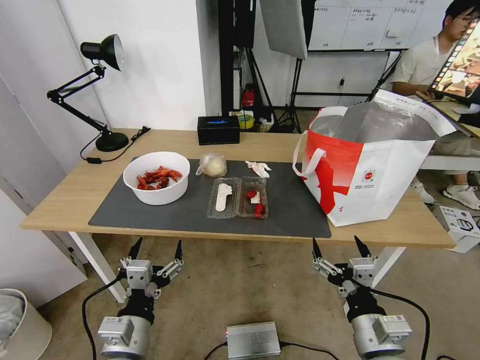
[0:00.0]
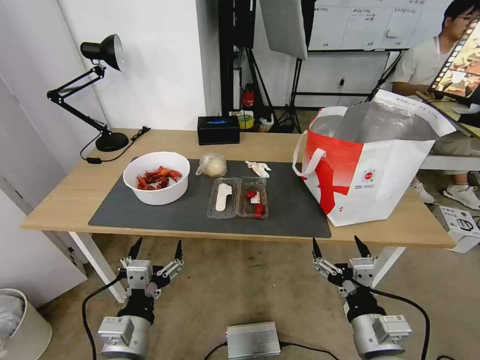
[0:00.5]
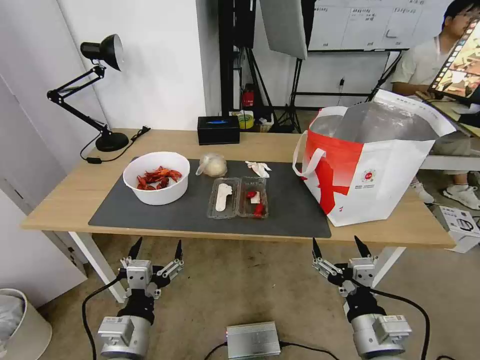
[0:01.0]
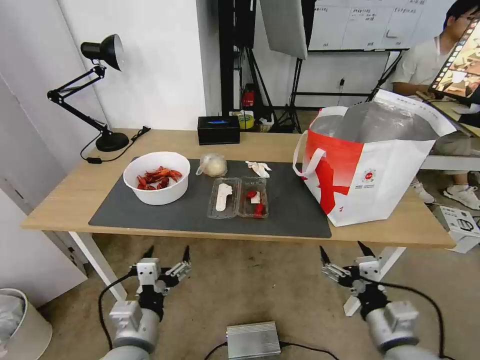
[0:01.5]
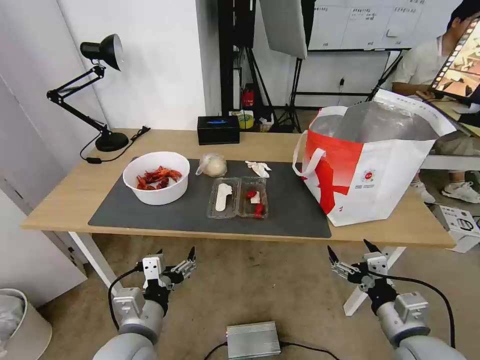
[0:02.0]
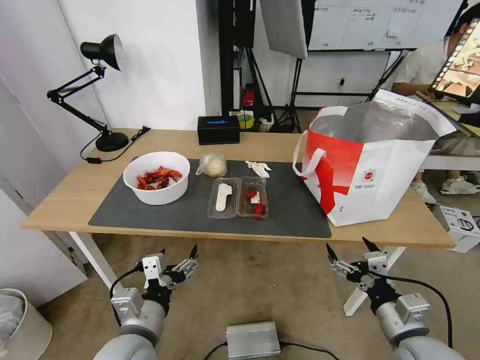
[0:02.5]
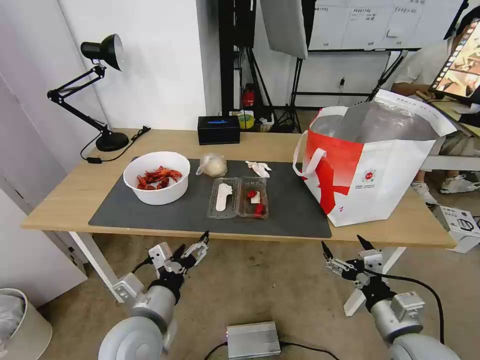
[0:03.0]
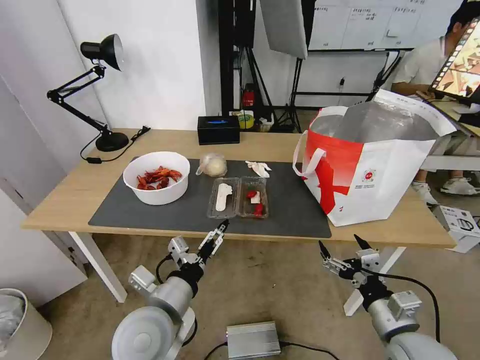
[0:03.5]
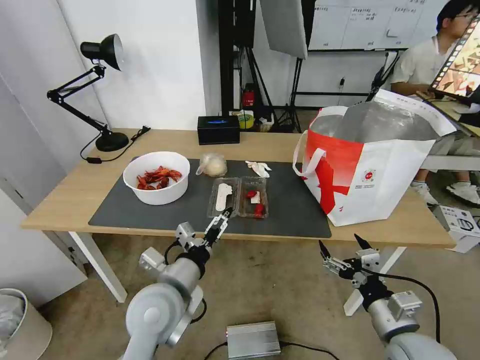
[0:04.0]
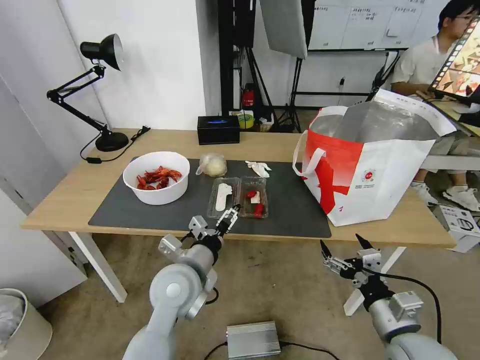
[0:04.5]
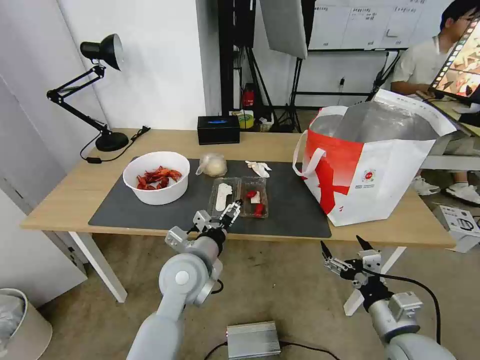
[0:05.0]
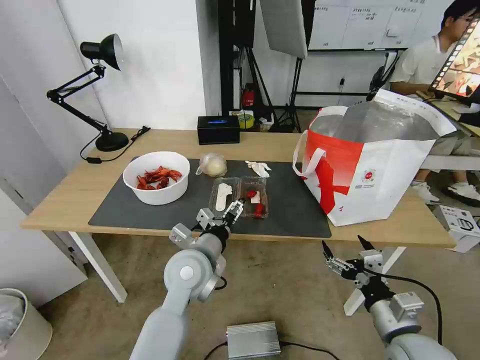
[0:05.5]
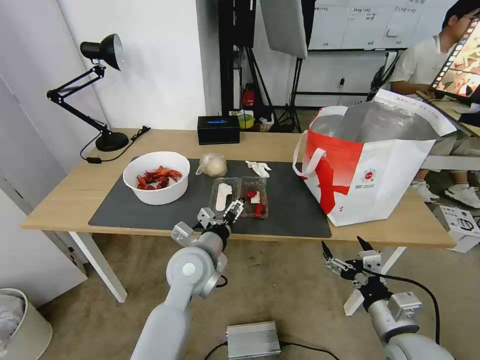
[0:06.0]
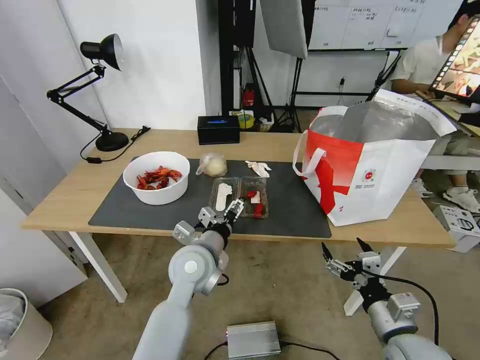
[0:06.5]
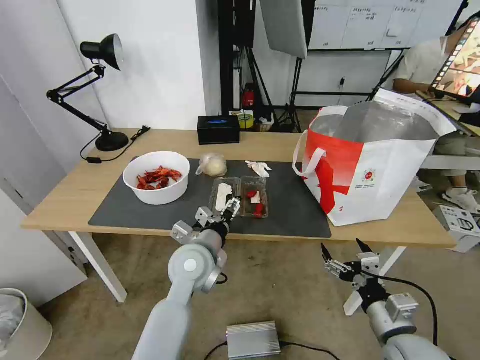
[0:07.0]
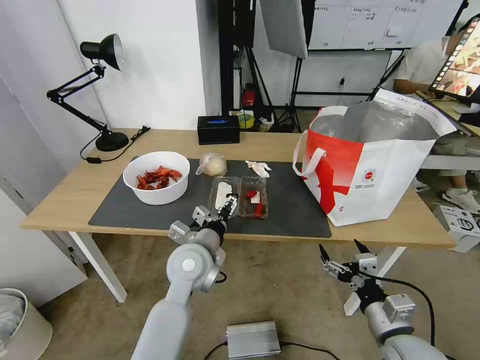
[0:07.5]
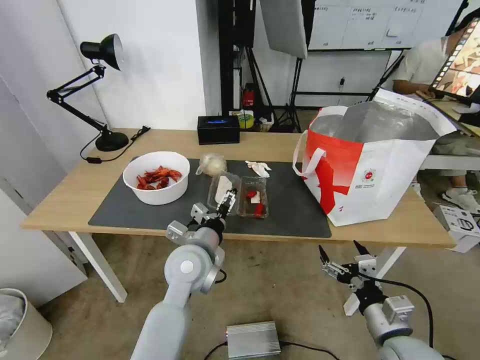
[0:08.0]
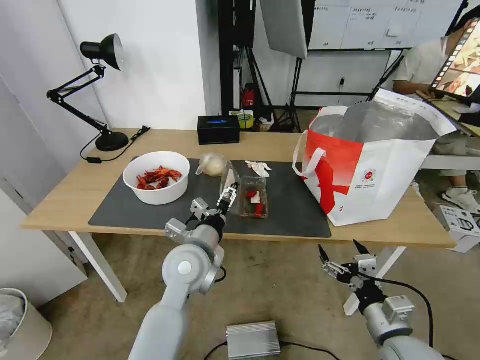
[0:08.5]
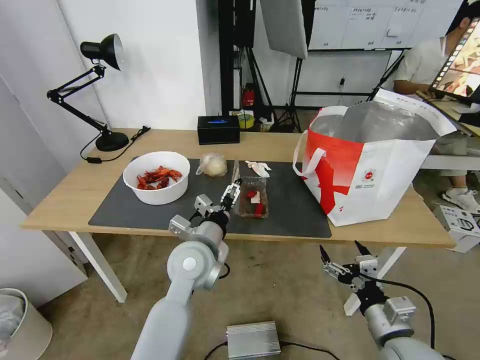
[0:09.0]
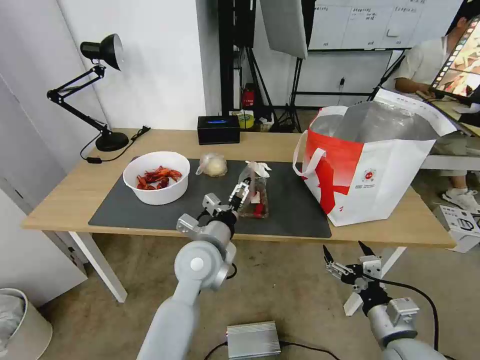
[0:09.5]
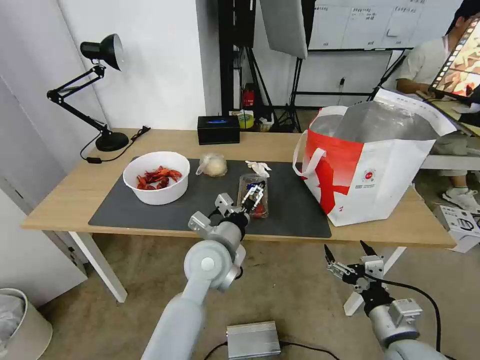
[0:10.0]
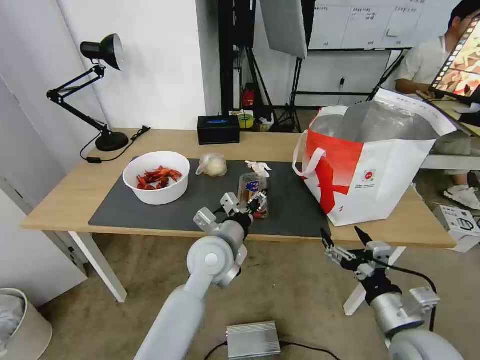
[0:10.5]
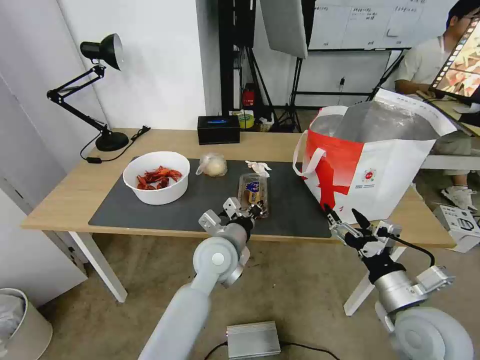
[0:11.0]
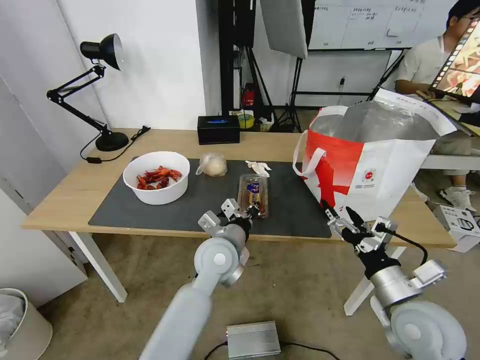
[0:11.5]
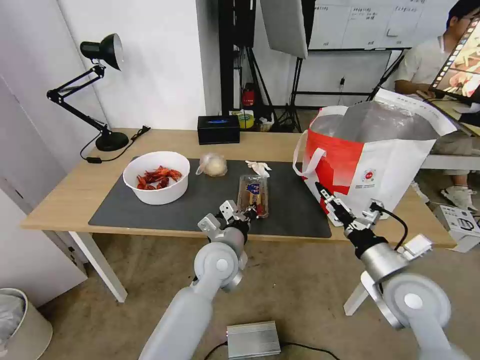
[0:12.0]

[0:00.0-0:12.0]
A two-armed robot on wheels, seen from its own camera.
Task of the whole recording: Pick up the trash from the table and place it into the takeout bag.
0:02.0 to 0:04.0: The left gripper travels forward and to the right by some 10 cm.
0:04.0 to 0:06.0: The left gripper is displaced forward by approximately 10 cm.
0:06.0 to 0:10.0: The grippers stay close to where they were, moving slightly.
0:10.0 to 0:12.0: The left gripper closes up; the right gripper heads forward and upward, covering about 10 cm.

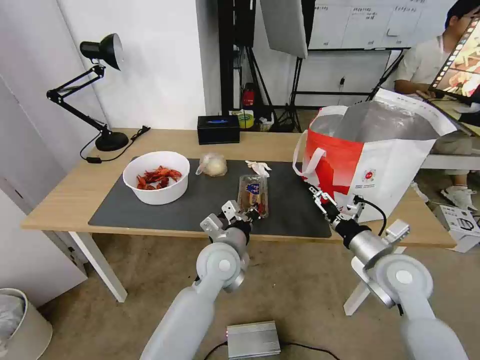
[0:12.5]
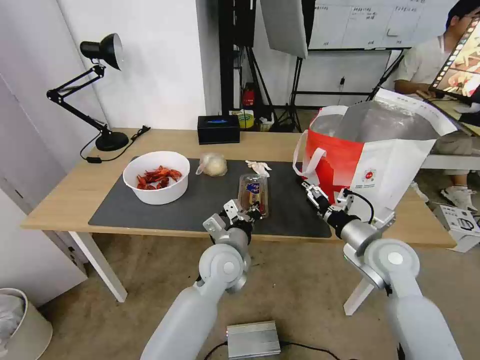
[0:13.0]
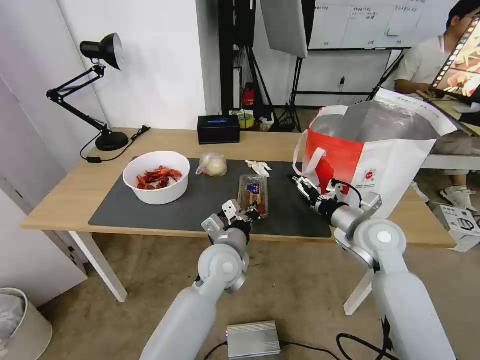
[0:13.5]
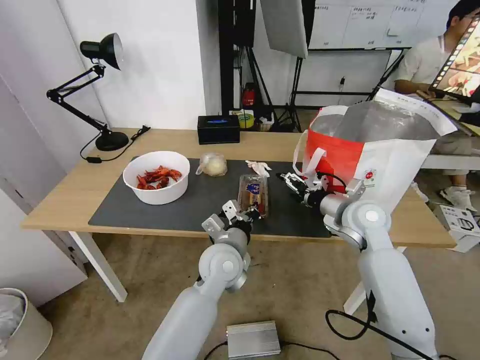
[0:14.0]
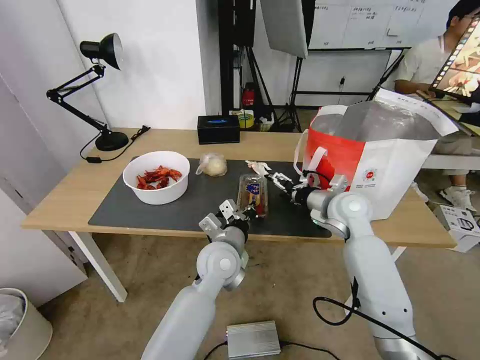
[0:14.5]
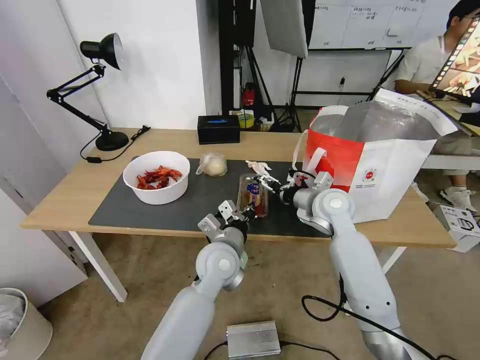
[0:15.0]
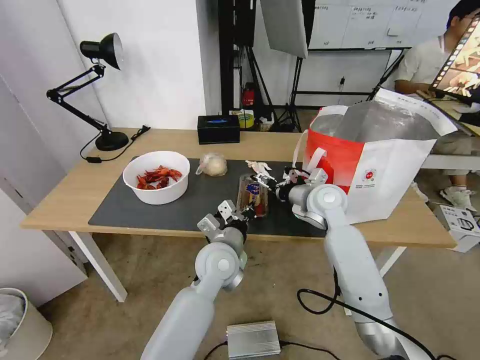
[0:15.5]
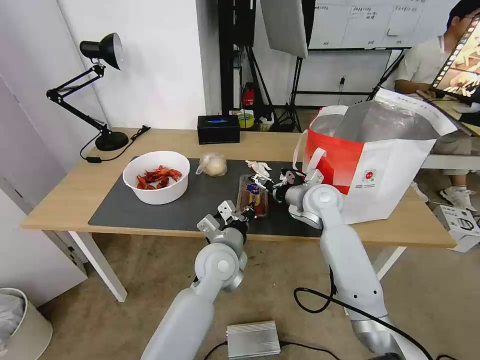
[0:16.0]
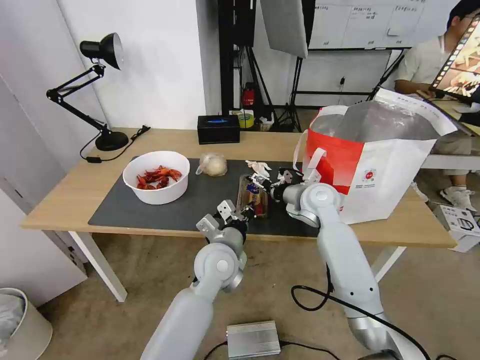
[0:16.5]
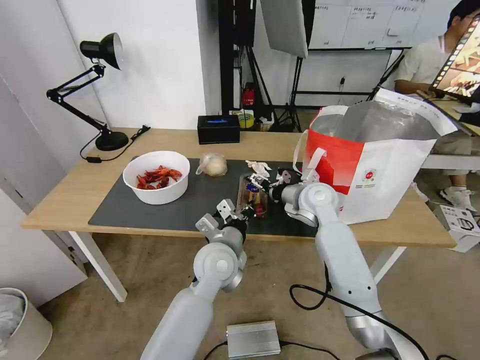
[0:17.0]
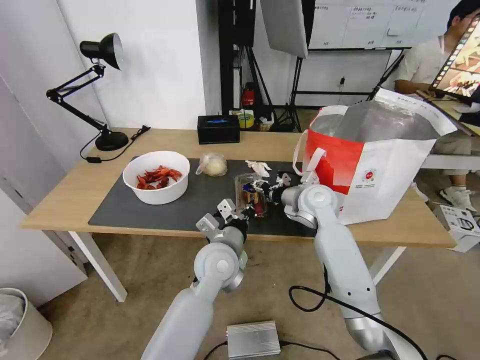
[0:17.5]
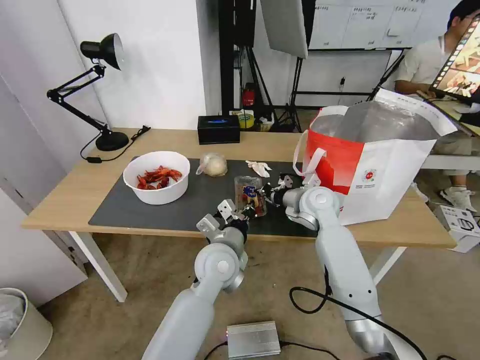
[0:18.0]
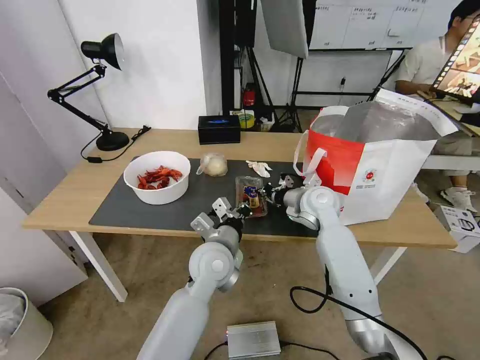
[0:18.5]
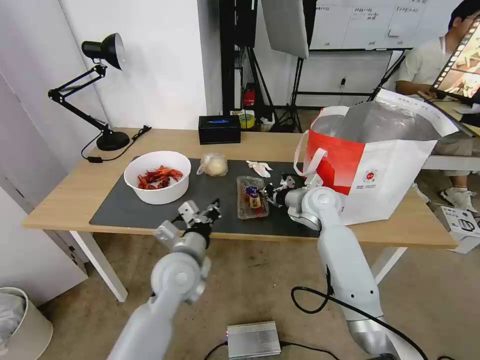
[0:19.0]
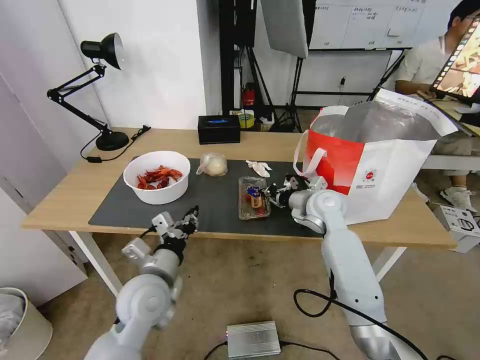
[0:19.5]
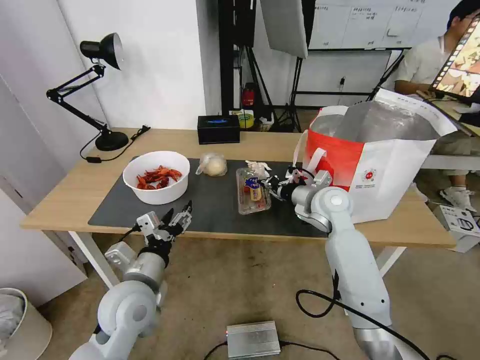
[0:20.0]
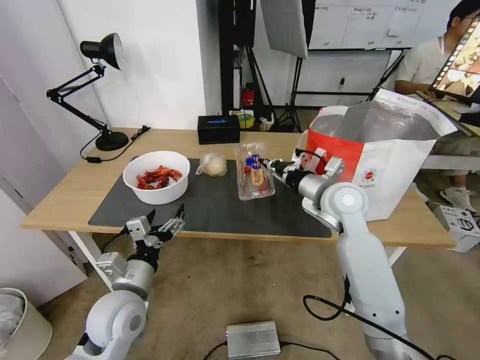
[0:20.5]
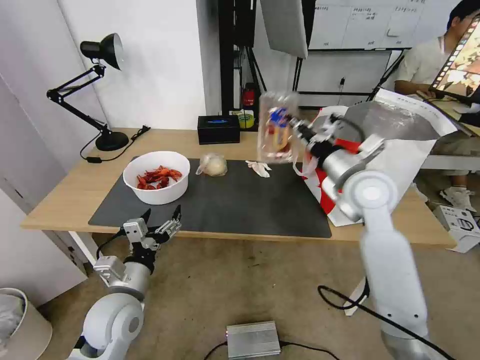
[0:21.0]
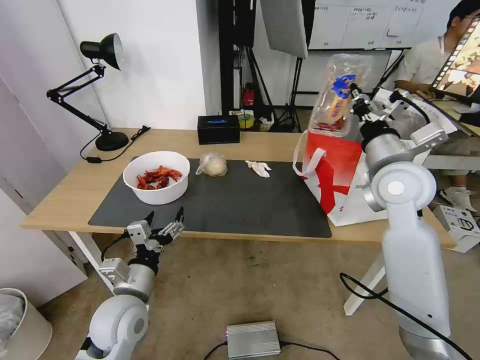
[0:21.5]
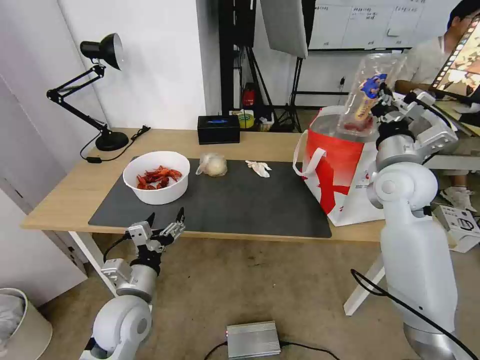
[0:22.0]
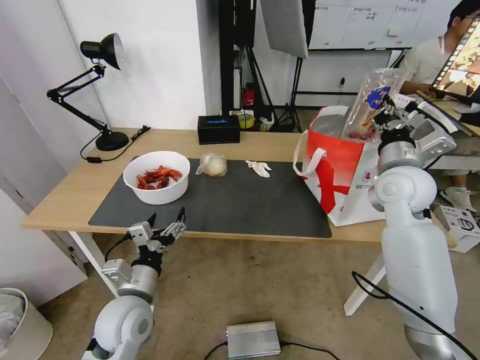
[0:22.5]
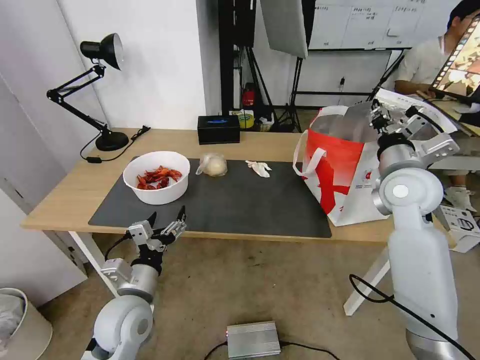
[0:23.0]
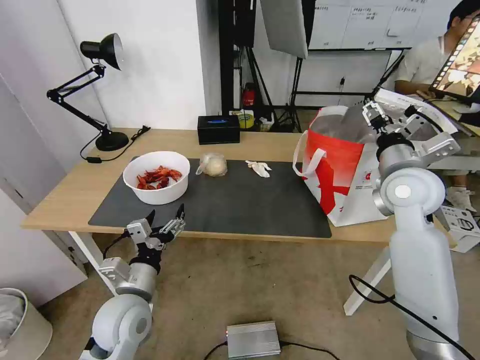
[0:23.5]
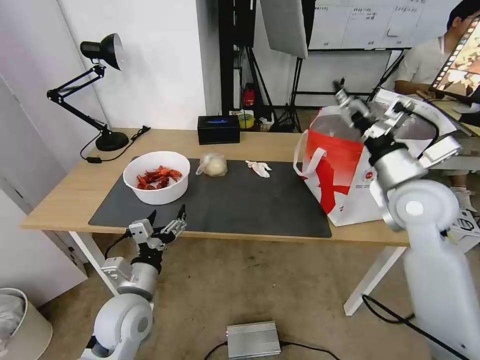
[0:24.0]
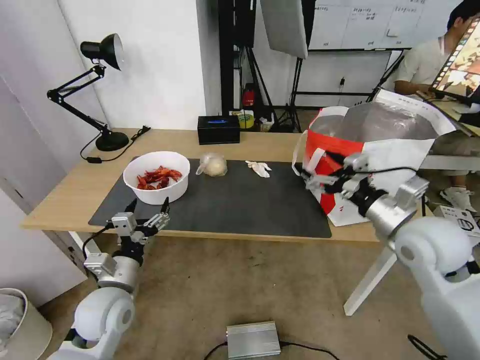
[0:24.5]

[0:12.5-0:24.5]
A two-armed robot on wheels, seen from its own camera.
Task of the whole recording: Pick up the trash from the table and place it into the takeout bag.
0:12.5 to 0:14.5: The right gripper travels forward by roughly 15 cm.
0:14.5 to 0:16.5: The right gripper heads to the left, covering roughly 5 cm.
0:16.5 to 0:18.5: The right gripper closes up.
0:18.5 to 0:20.5: The left gripper travels to the left and backward by approximately 20 cm, and opens up. The right gripper moves upward, about 5 cm.
0:20.5 to 0:22.5: The right gripper travels to the right and upward by approximately 10 cm.
0:22.5 to 0:24.5: The right gripper is displaced backward by roughly 10 cm, and opens.

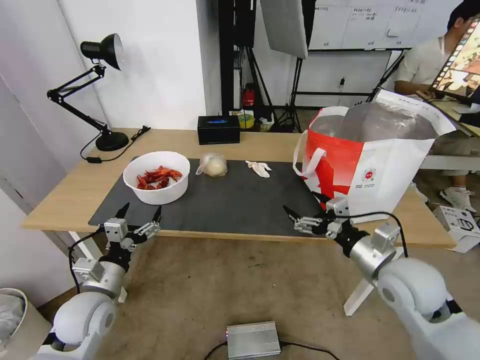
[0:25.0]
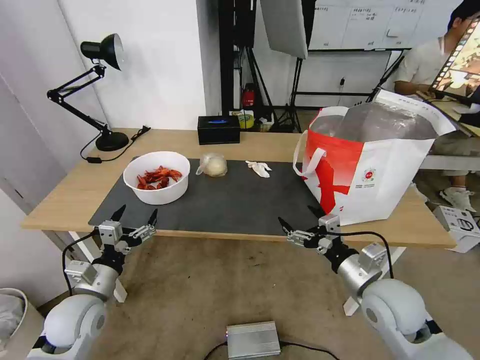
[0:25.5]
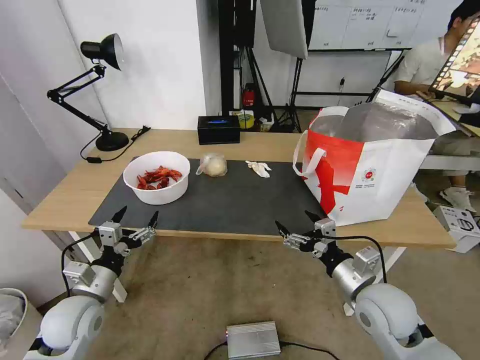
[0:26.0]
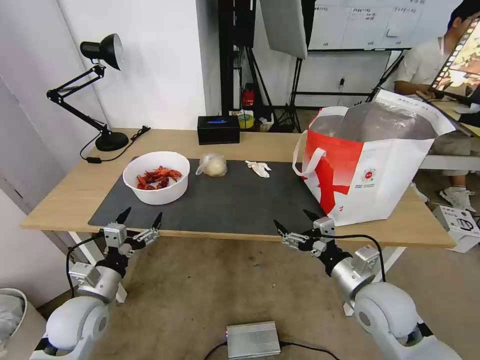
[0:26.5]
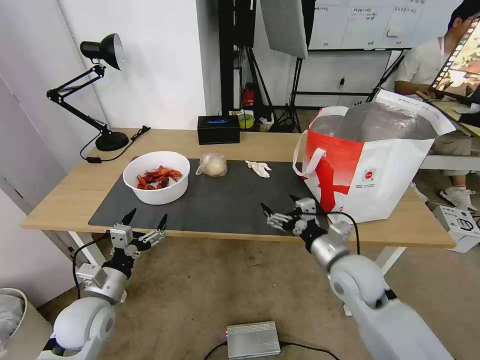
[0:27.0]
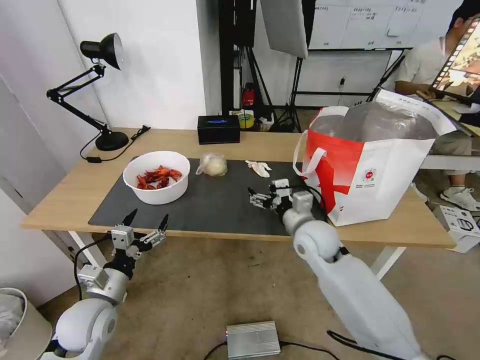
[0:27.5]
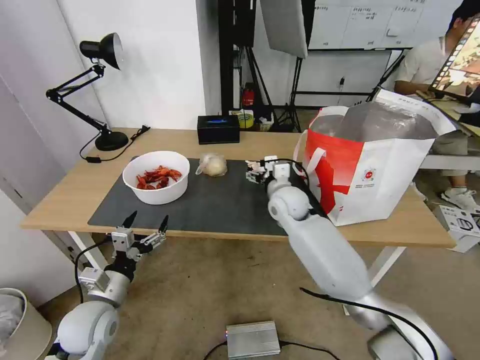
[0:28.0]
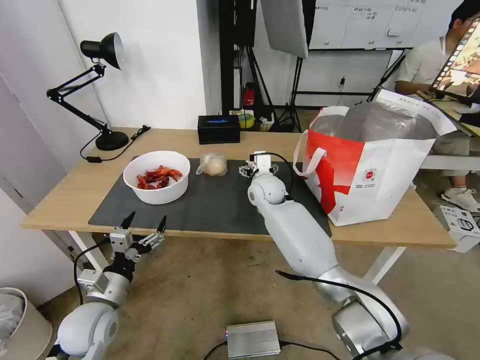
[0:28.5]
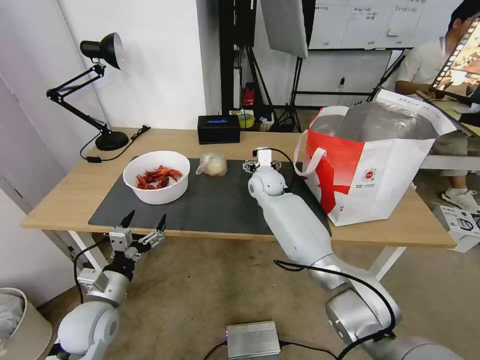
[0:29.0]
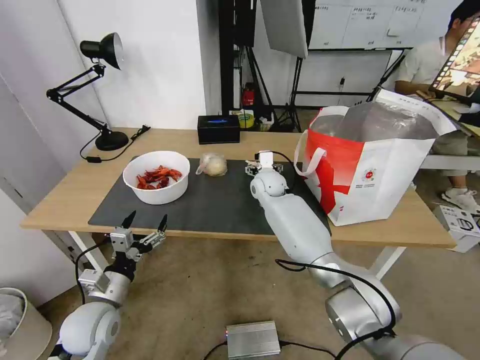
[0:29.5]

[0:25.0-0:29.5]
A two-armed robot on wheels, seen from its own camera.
Task of the whole recording: Pick up the trash from the table and place it into the takeout bag.
0:25.0 to 0:27.0: The right gripper is displaced to the left by approximately 5 cm.
0:27.0 to 0:29.5: The right gripper shifts some 30 cm forward and to the left.
